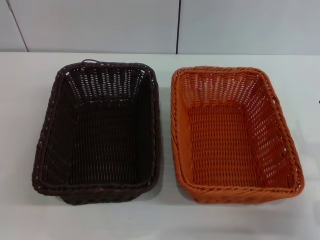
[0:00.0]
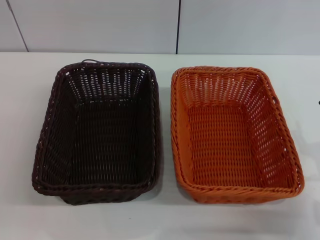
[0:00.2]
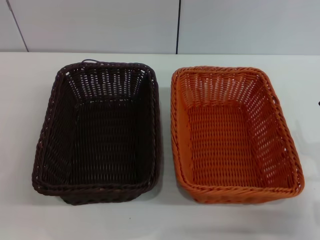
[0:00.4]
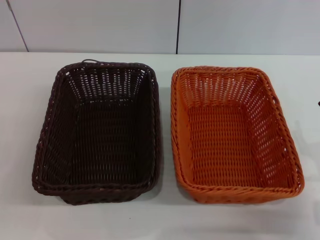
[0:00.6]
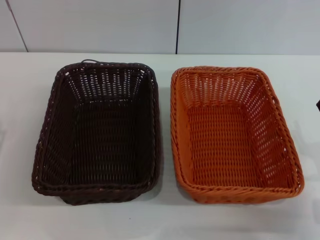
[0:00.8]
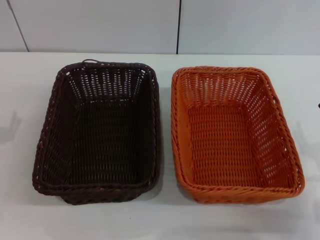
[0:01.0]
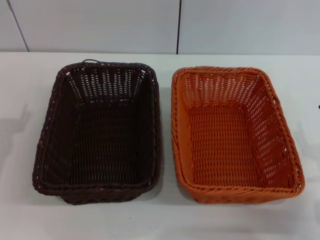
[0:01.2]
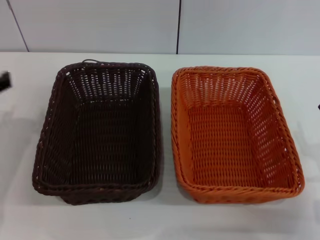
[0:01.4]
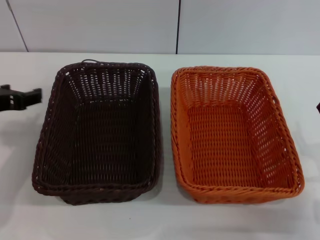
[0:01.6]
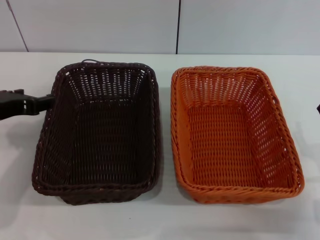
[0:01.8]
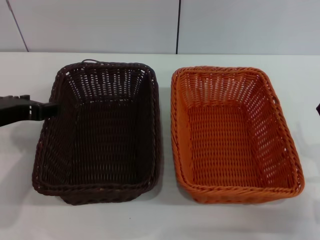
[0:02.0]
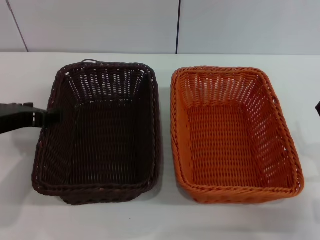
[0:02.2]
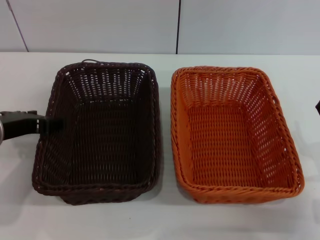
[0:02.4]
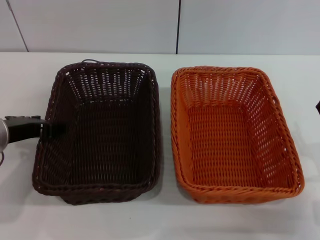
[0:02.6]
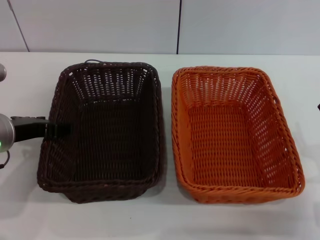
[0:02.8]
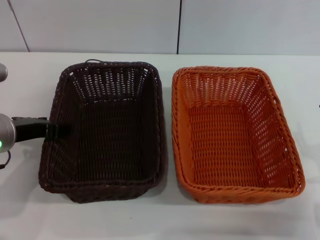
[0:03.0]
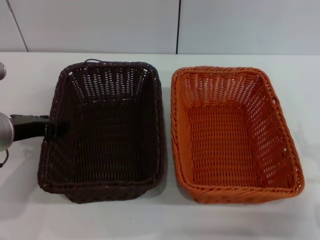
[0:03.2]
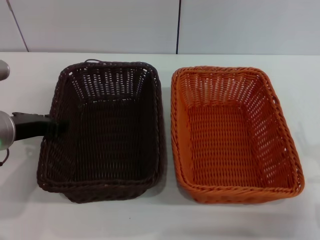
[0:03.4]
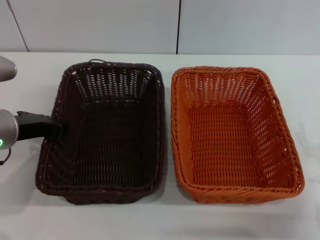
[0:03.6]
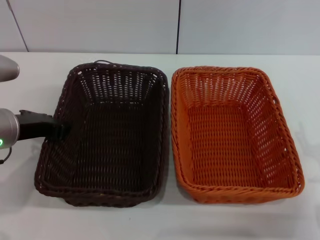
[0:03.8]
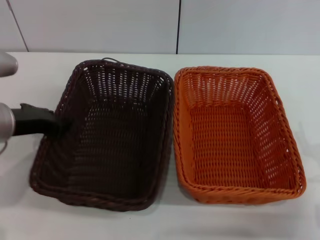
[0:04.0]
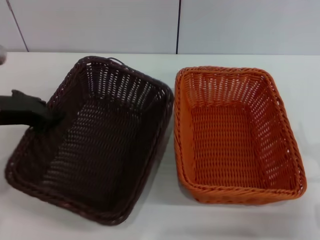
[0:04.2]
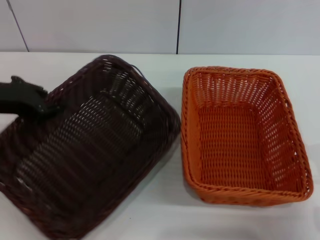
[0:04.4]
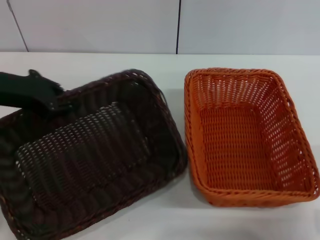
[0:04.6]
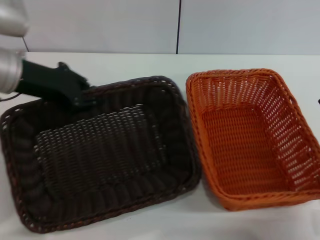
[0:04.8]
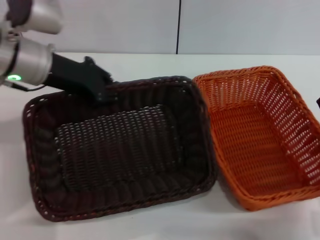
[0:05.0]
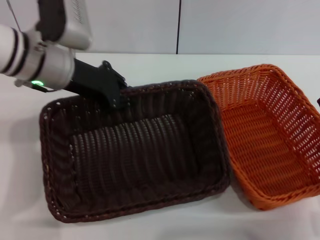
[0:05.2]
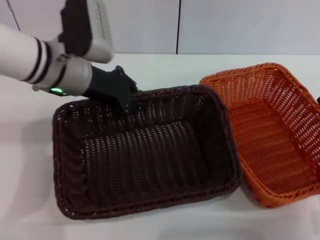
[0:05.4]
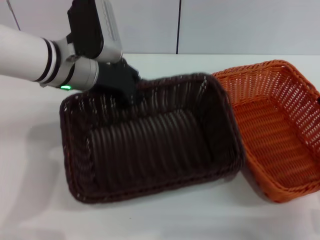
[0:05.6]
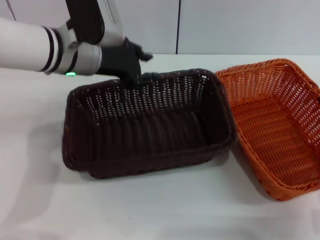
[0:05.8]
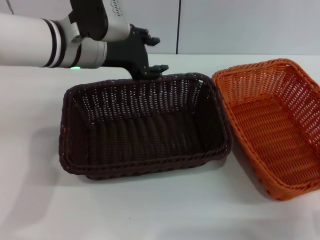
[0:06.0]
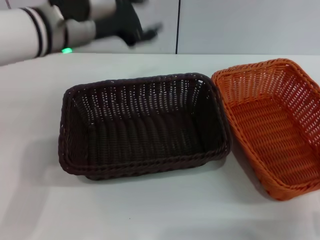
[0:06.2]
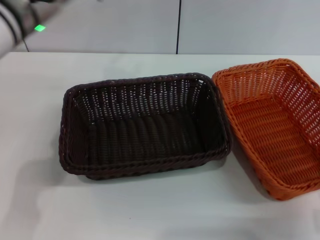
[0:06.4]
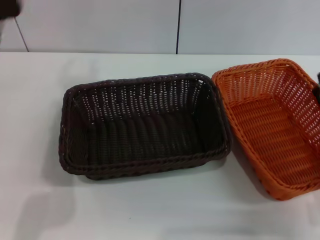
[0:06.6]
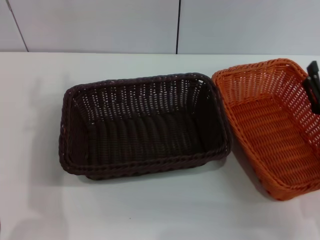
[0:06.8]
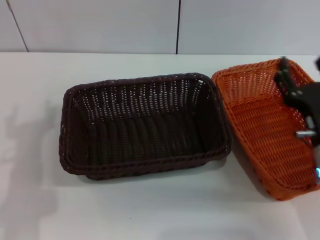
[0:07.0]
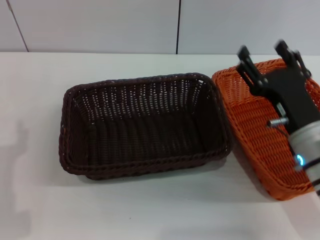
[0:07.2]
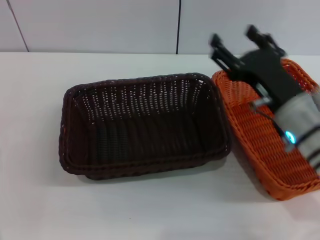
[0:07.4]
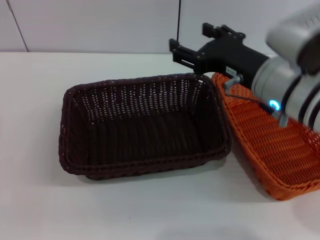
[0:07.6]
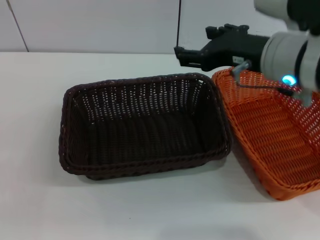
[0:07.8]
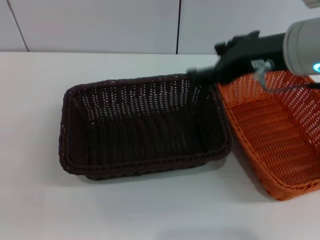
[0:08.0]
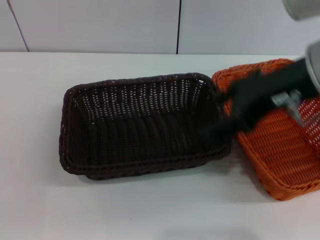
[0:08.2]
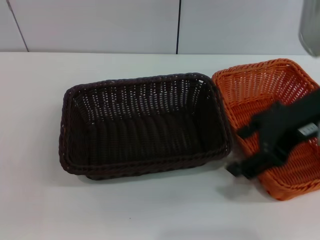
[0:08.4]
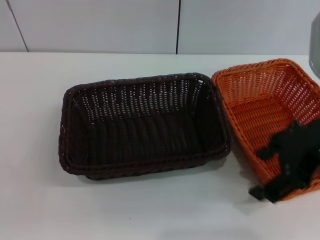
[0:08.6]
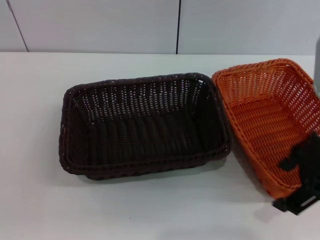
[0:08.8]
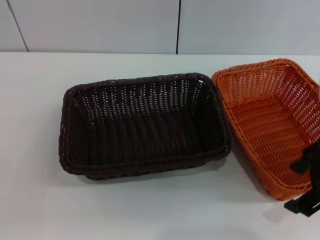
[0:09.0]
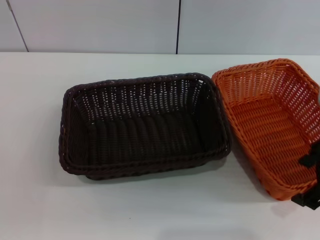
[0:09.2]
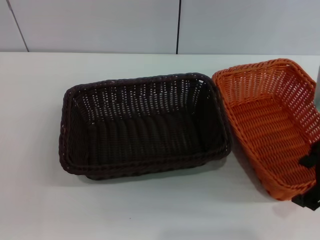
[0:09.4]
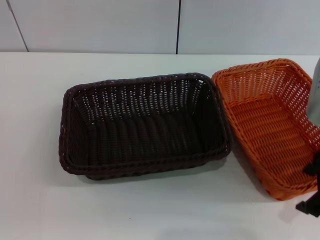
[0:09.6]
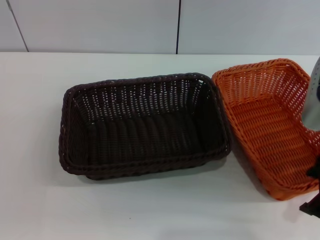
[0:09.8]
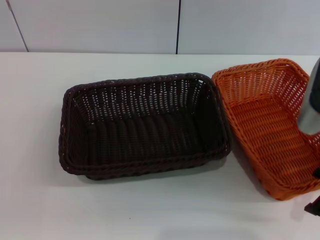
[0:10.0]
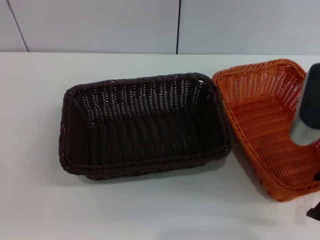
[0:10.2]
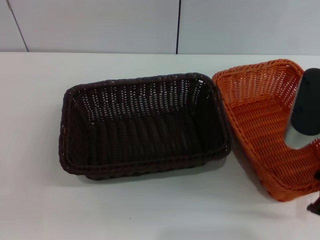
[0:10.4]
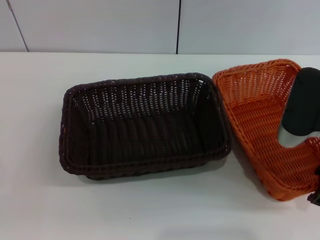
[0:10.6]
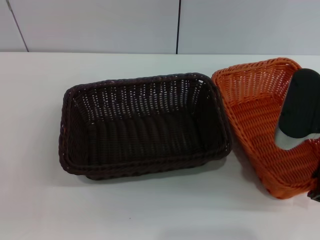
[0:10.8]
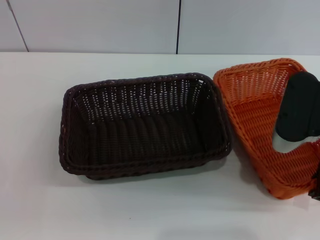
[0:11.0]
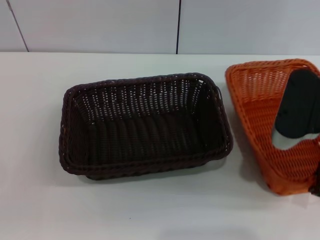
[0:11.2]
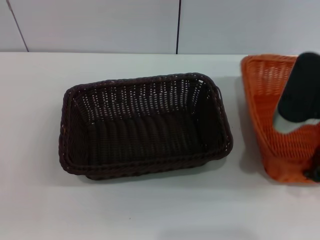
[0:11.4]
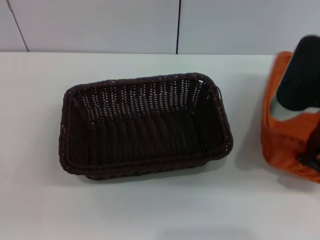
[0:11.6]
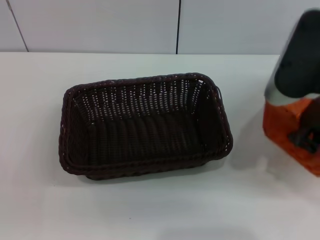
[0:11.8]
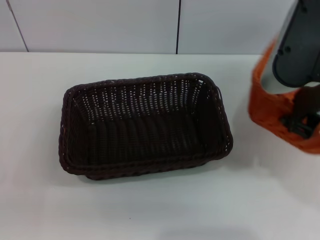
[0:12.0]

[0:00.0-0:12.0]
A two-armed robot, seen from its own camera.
Step, 0:00.0 to 0:04.8: Pick up the dark basket with the left gripper.
Step, 0:05.0 to 0:05.8: Place the dark basket in the center of view with the left gripper.
Step, 0:06.0 to 0:11.4: Pick up the light basket with the right gripper.
0:00.0 to 0:01.6: The left gripper heads upward and forward, covering roughly 20 cm.
0:01.6 to 0:03.0: The left gripper moves approximately 5 cm.
0:03.0 to 0:04.4: The left gripper goes approximately 5 cm upward, and closes.
0:04.4 to 0:06.0: The left gripper is displaced to the right and forward by roughly 15 cm, and opens.
0:06.0 to 0:07.6: The left gripper goes roughly 35 cm backward, to the left and downward, and opens its fingers; the right gripper heads upward, to the left and forward, covering roughly 20 cm.
0:07.6 to 0:09.0: The right gripper moves to the right and upward, about 10 cm.
0:09.0 to 0:10.4: The right gripper is displaced downward by about 5 cm.
0:10.4 to 0:12.0: The right gripper moves upward, about 10 cm, and closes up.

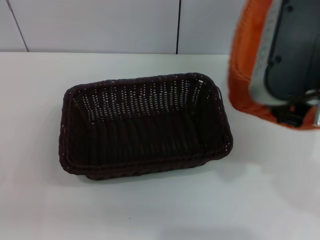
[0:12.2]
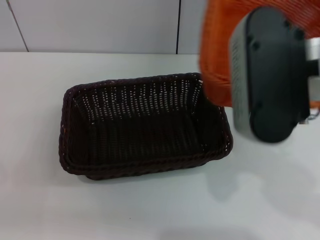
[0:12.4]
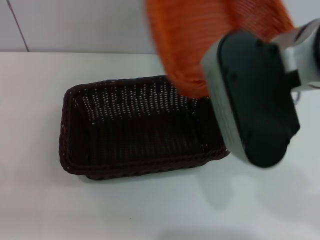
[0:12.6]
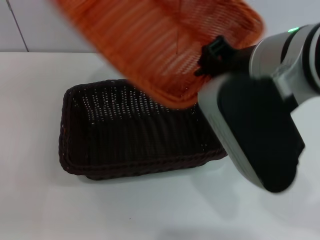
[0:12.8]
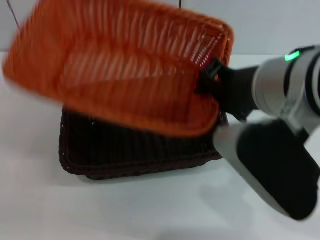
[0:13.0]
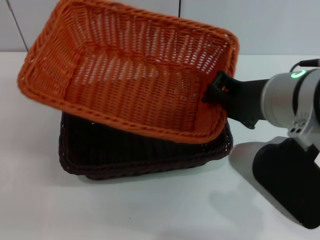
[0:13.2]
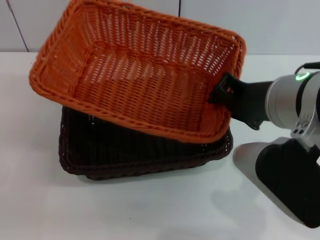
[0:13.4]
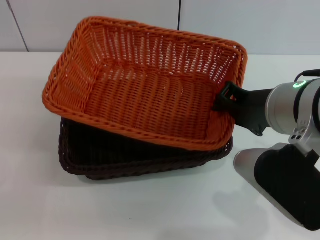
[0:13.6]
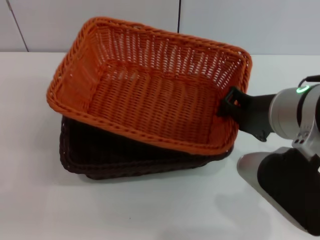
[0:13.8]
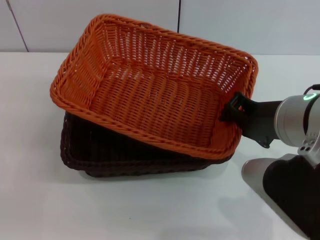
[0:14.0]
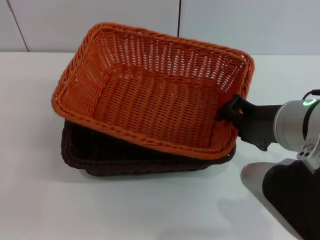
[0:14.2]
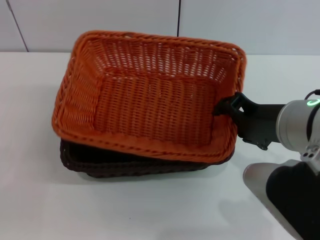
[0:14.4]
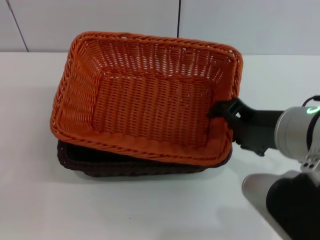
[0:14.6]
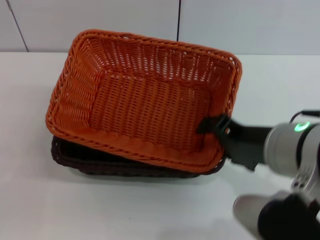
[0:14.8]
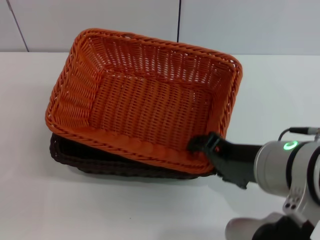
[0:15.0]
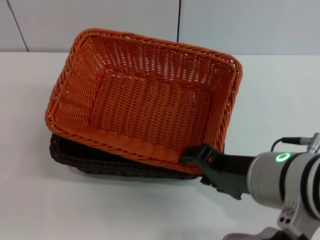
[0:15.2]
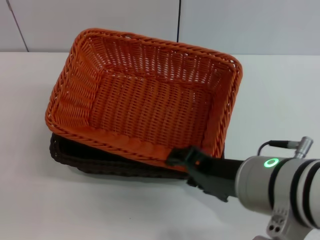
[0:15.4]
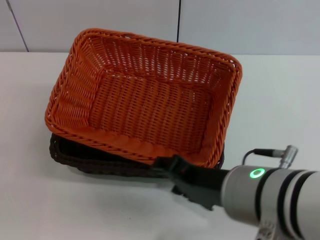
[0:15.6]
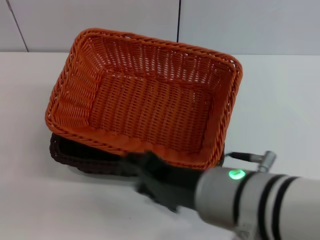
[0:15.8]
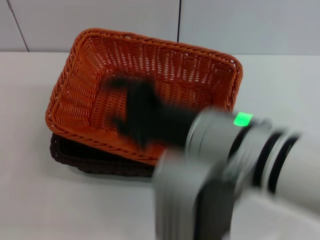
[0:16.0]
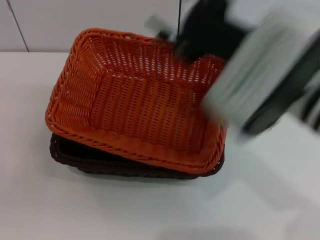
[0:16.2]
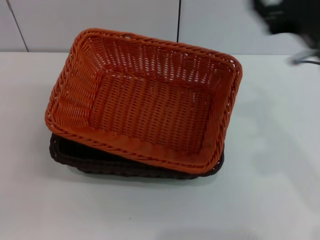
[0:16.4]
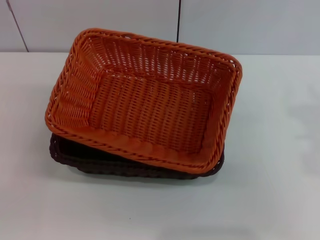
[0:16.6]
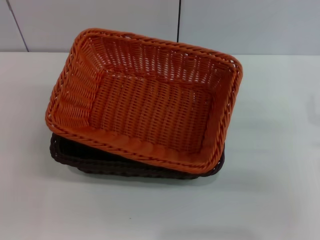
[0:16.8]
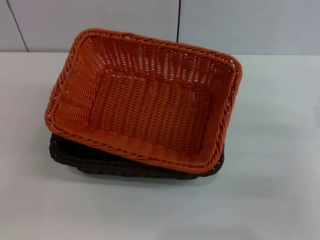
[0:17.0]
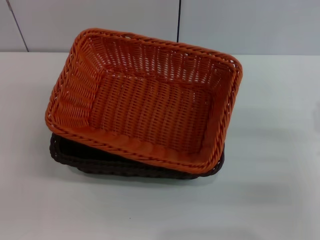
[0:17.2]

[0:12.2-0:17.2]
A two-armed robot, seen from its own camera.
Step, 0:12.2 to 0:15.0: Place the light basket on the dark basket with the right gripper.
0:12.2 to 0:13.8: The right gripper is displaced downward by roughly 5 cm.
0:13.8 to 0:15.6: The right gripper goes roughly 5 cm backward, and opens its fingers.
0:15.6 to 0:17.2: The right gripper heads to the right and downward, covering approximately 25 cm.
